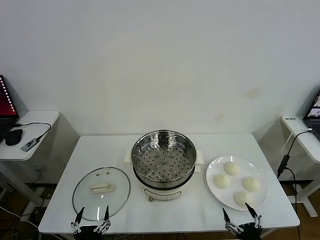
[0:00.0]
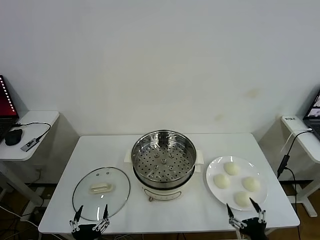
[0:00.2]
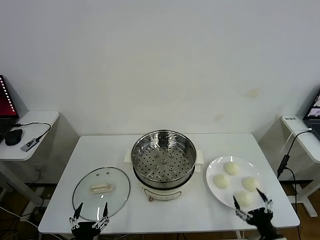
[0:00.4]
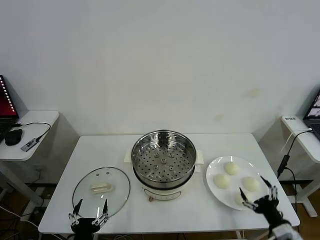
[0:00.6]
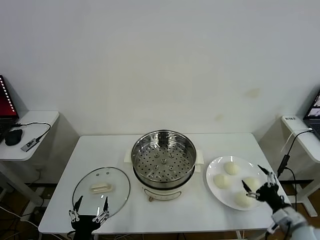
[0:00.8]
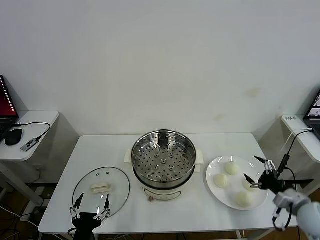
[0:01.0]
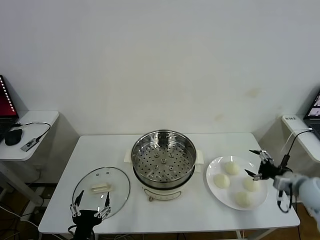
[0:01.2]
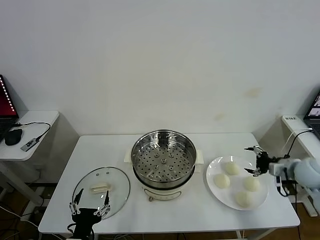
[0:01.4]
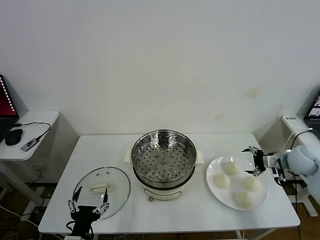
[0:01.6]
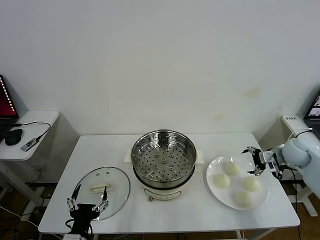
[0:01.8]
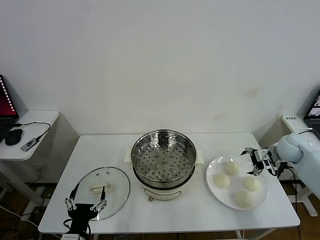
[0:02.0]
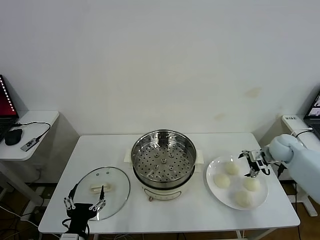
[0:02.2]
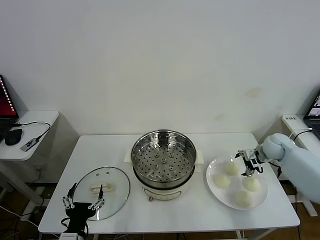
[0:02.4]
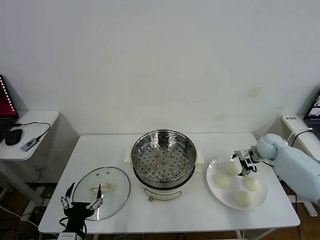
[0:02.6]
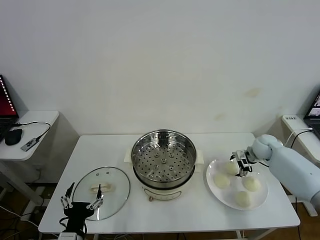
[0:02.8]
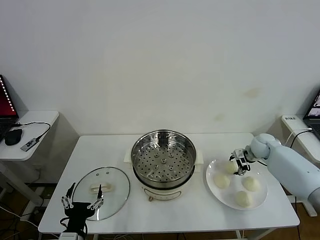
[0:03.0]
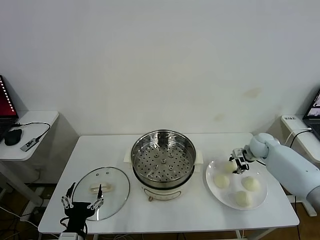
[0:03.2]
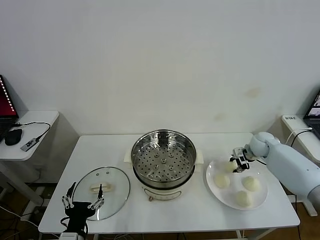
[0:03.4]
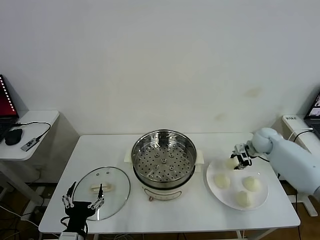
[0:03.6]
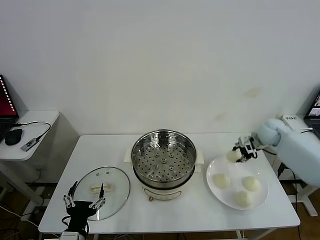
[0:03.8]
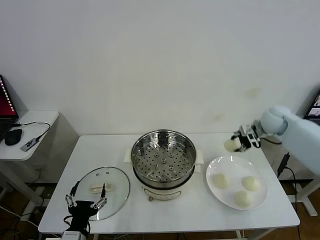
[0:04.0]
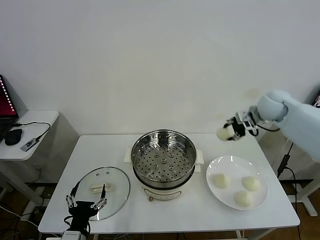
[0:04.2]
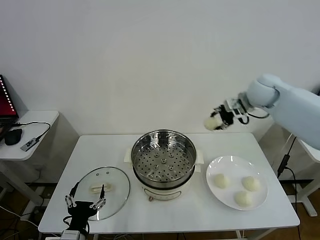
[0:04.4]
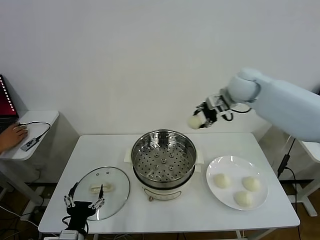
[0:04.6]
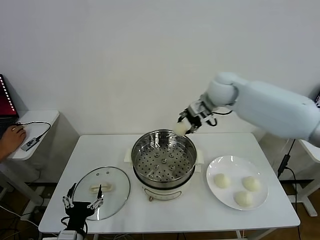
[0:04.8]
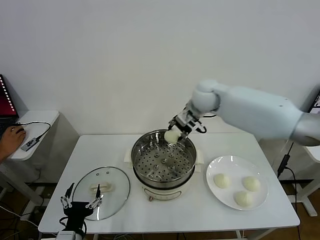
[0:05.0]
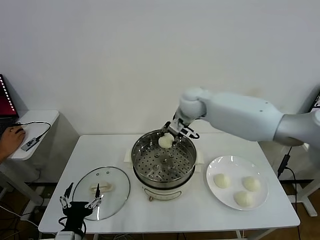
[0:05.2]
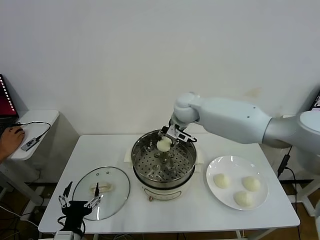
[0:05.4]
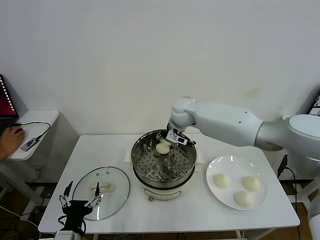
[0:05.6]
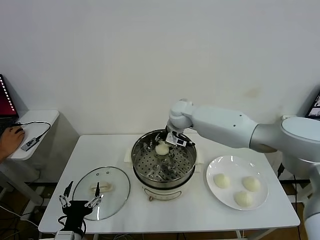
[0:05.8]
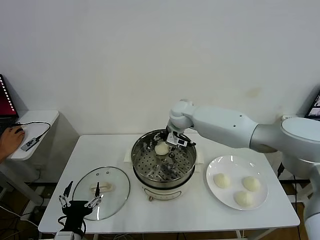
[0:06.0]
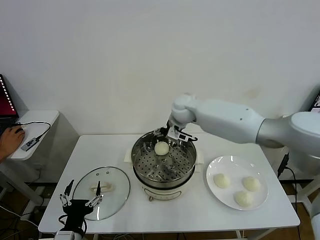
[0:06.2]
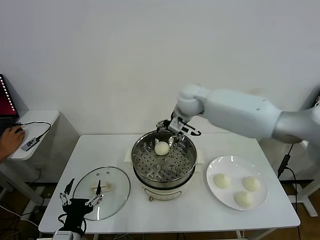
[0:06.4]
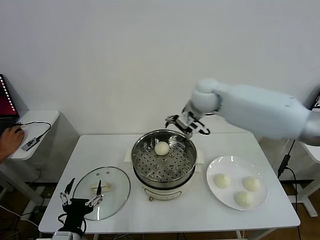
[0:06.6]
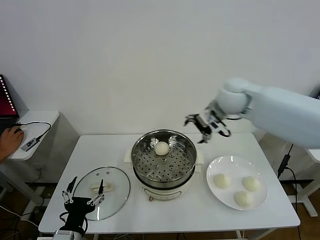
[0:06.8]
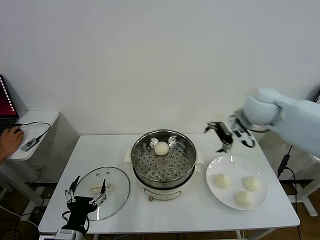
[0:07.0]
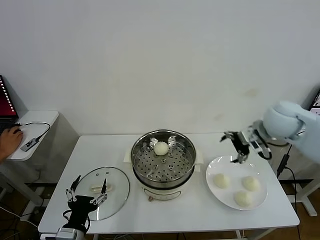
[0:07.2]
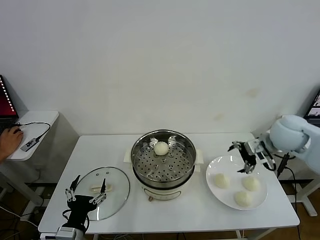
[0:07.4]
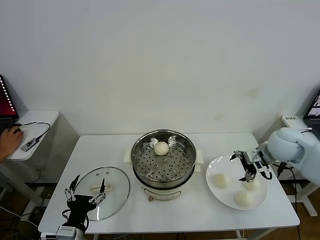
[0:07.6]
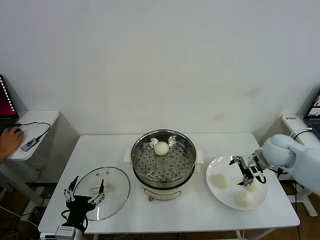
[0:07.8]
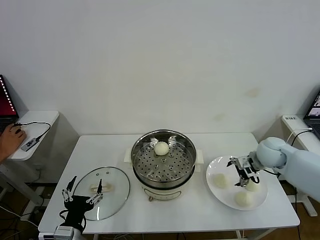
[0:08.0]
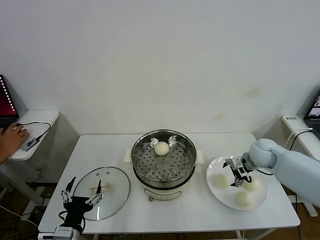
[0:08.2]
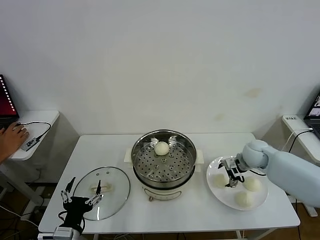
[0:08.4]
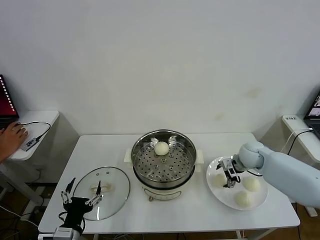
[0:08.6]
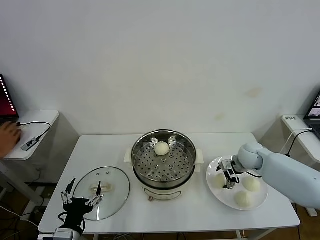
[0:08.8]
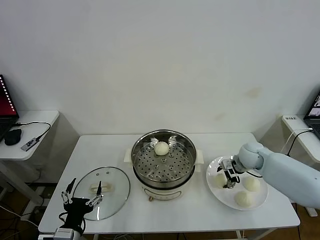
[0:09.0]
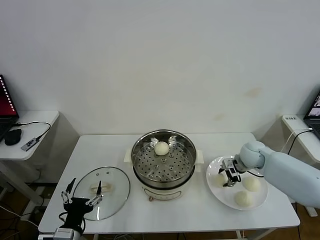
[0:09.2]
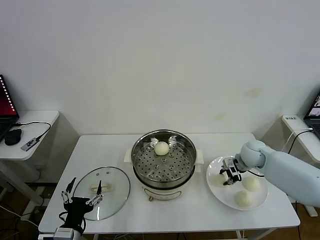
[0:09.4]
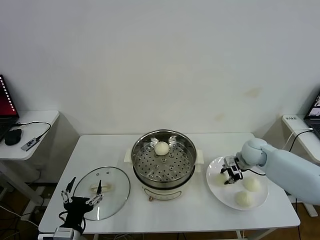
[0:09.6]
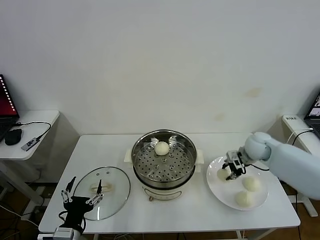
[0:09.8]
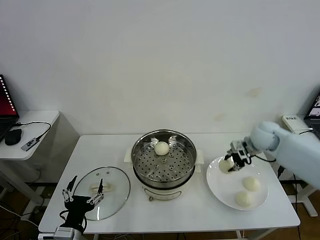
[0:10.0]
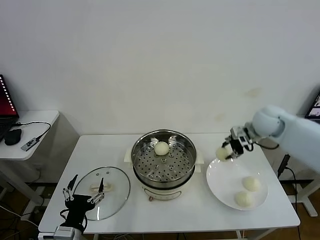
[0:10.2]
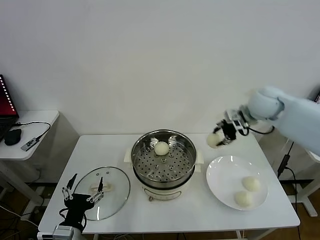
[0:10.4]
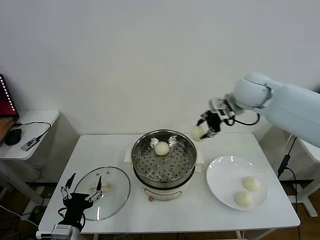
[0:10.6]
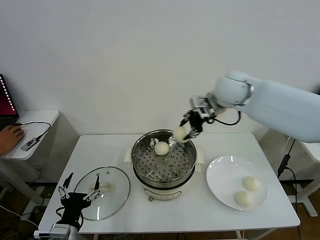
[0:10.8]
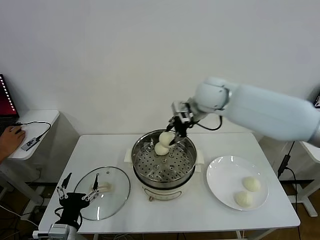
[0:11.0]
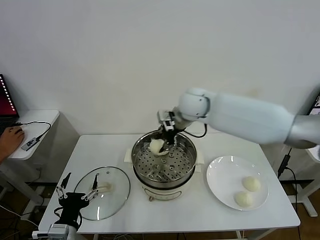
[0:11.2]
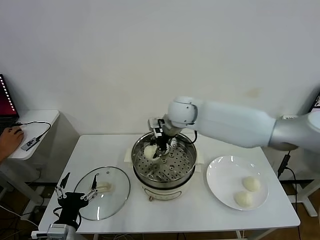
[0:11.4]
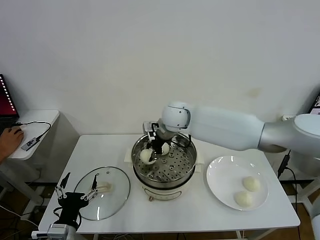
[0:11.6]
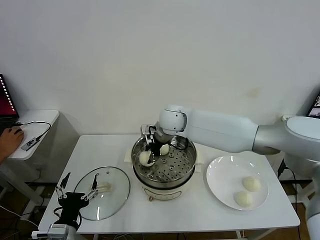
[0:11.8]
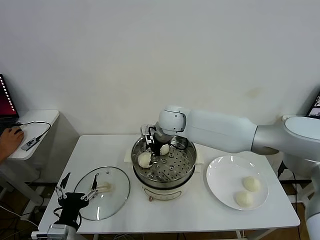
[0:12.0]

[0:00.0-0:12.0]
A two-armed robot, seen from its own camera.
Task of the whole recording: take steamed baozi put them in steamer then cover it.
Step, 0.0 to 3.2 s: Grasp the baozi in the plate with right gripper.
Step, 3.4 to 6.0 s: Place the baozi on the steamer with right gripper.
Step, 6.2 to 9.4 s: Grasp the baozi in the plate with right gripper.
Step, 9.6 to 12.0 s: Place the baozi on the steamer with right gripper.
1.6 to 3.0 s: The right gripper goes roughly 15 cm forward, downward and to the left, and closes its fingers.
3.0 to 4.4 s: The right gripper heads upward and to the left, covering some 30 cm.
4.4 to 6.0 s: The right gripper goes about 20 cm to the left and downward, and opens its fingers.
6.0 to 7.6 s: The right gripper heads to the right and backward, covering approximately 35 cm.
7.6 to 9.0 s: The right gripper shifts about 10 cm downward and forward, and closes up.
9.0 to 10.4 s: The right gripper travels upward by some 25 cm, and closes.
10.4 to 12.0 s: The right gripper heads to the left and downward, covering approximately 25 cm, and opens its fingers.

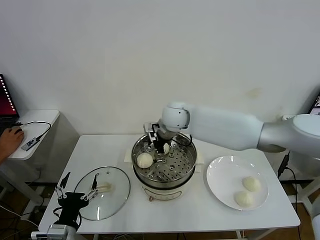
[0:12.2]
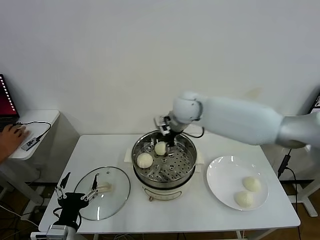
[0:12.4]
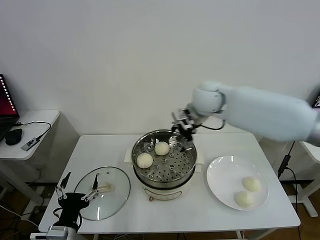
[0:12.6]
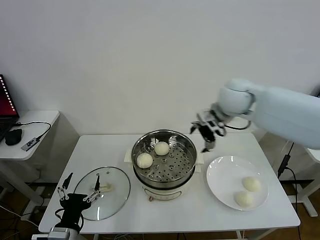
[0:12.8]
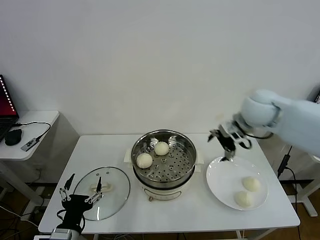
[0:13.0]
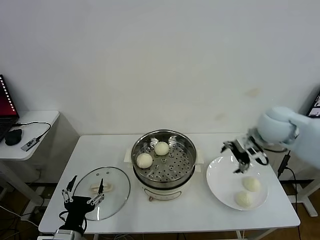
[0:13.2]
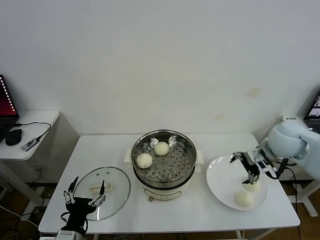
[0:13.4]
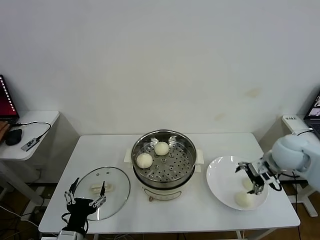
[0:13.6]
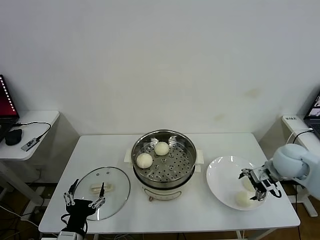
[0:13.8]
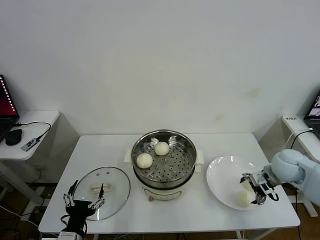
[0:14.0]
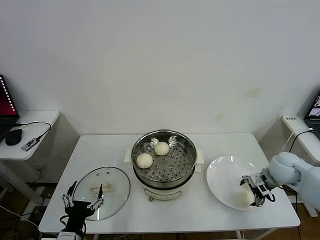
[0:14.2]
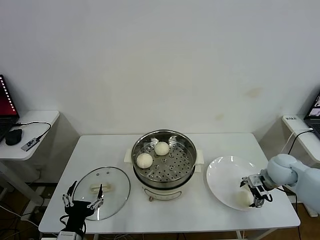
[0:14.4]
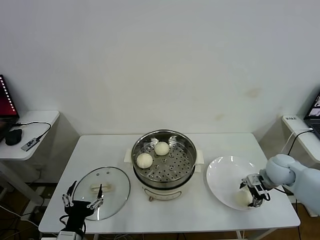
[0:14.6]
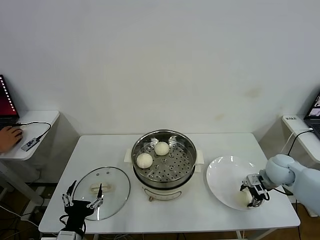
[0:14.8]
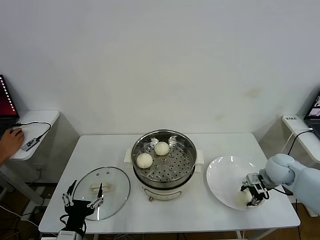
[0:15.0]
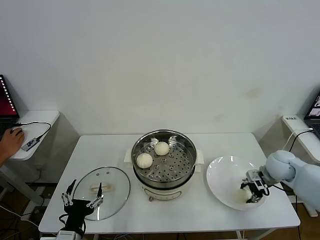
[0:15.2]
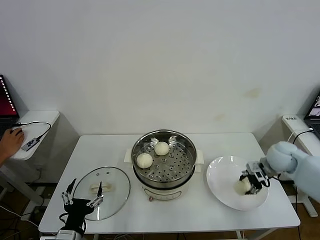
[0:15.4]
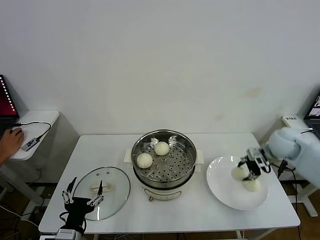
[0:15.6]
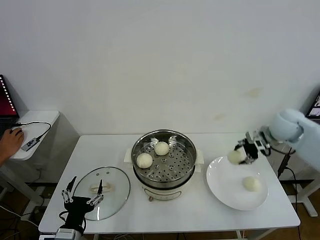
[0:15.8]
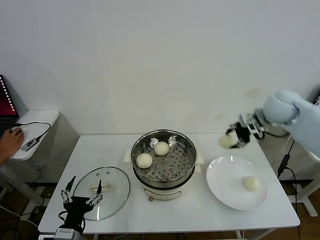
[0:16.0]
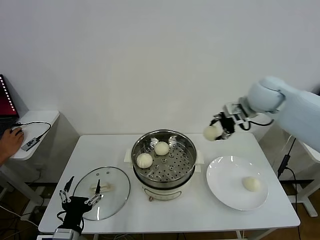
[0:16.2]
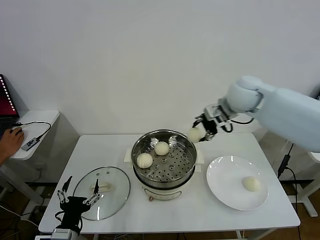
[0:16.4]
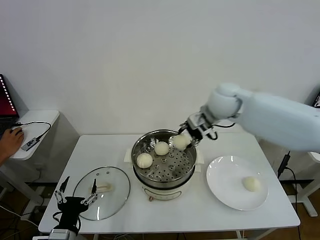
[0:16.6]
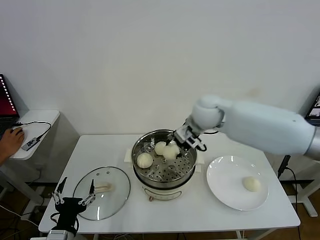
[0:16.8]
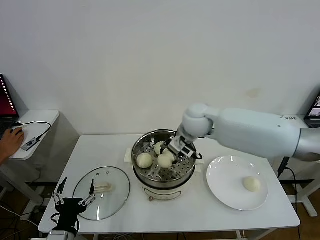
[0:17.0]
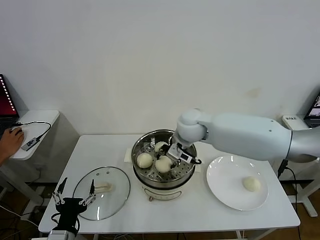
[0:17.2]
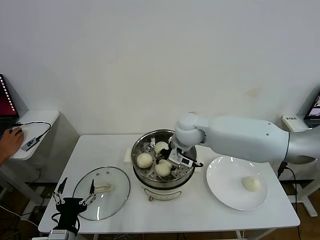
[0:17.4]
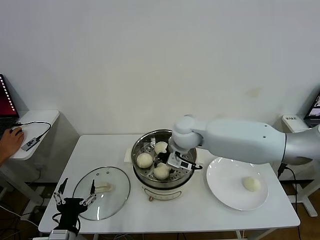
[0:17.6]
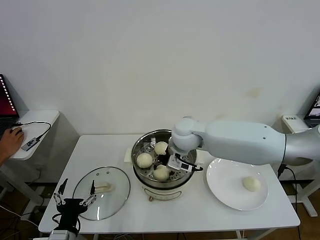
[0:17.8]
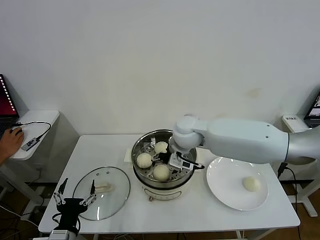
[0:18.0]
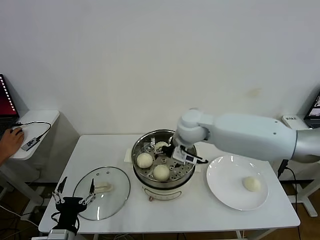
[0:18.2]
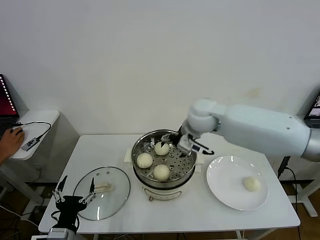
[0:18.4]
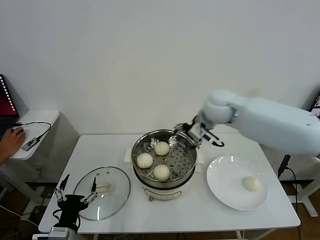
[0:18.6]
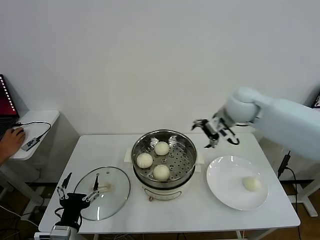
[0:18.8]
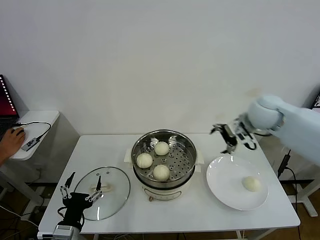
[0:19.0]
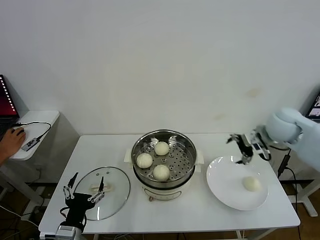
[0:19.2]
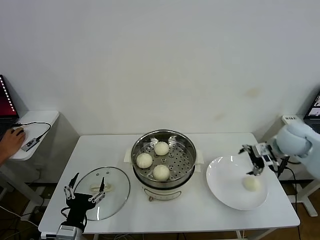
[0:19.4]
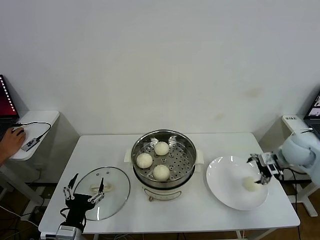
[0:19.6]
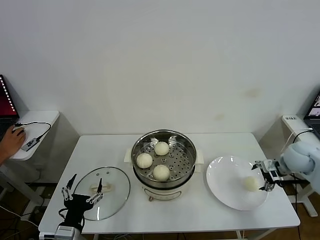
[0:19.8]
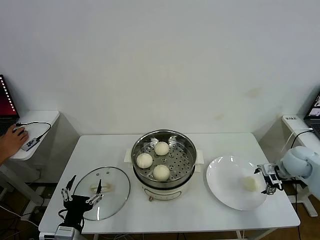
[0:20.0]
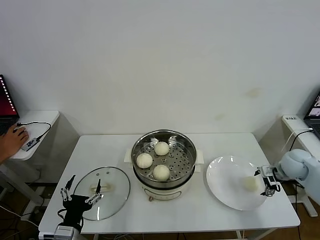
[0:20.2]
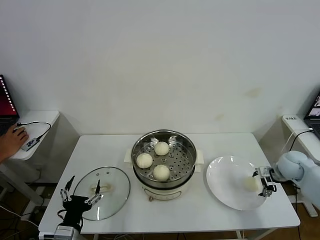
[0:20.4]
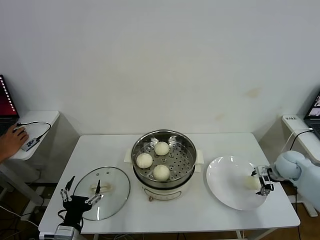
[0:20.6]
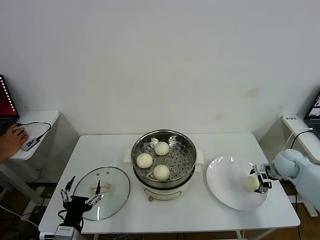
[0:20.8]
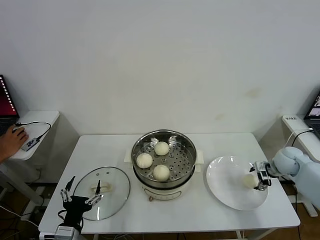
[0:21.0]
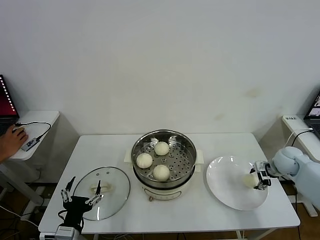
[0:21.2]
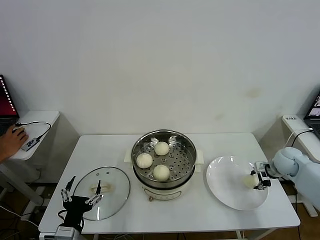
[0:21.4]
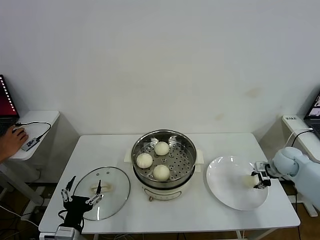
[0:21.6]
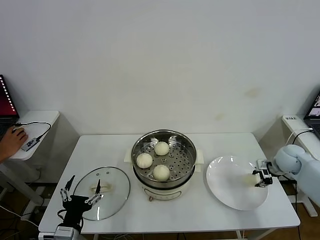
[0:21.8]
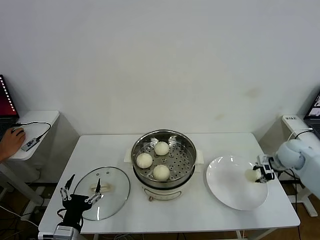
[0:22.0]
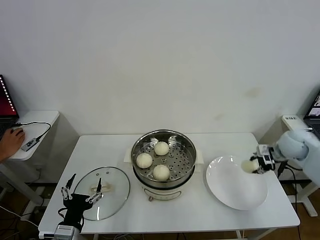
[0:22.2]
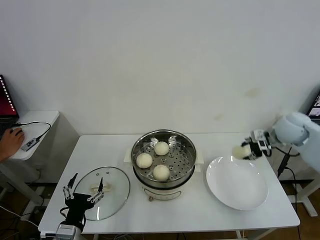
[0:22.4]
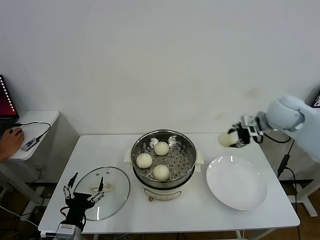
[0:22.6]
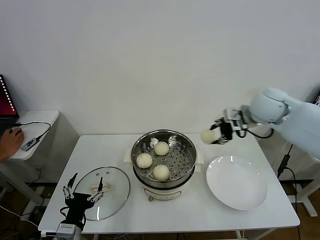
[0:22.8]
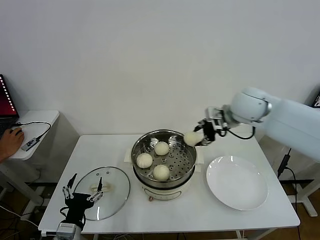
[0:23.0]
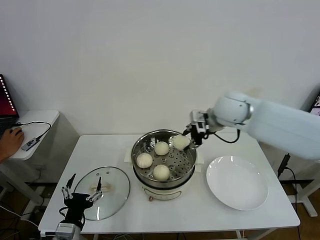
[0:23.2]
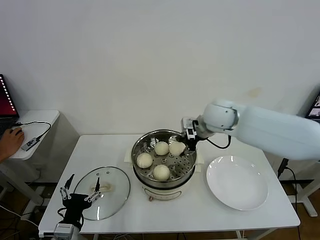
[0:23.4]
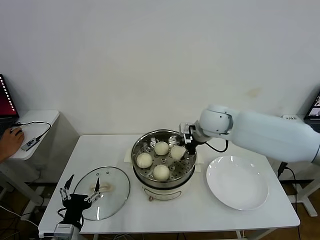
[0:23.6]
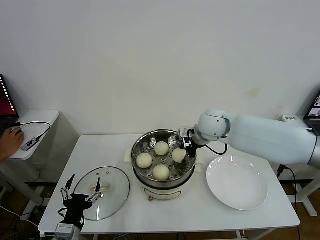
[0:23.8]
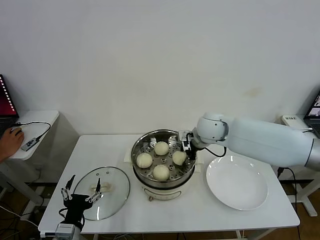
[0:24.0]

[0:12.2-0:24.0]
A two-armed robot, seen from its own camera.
Task of the whole recording: take steamed baozi put them in steamer then cover it.
Step, 12.2 to 15.0 s: Grasp the baozi in the plate with right gripper.
Step, 15.2 to 18.0 s: Place the baozi on the steamer with right gripper.
Step, 18.2 to 21.6 s: Grasp the baozi in the plate with right gripper.
12.2 to 13.6 s: The right gripper travels to the right and backward by some 35 cm.
13.6 to 15.2 s: The right gripper shifts about 10 cm downward, and closes.
15.2 to 16.6 s: The right gripper moves to the left and upward, approximately 30 cm.
16.6 to 18.2 s: The right gripper is displaced to the left and downward by some 10 cm, and opens.
18.2 to 19.6 s: The right gripper shifts roughly 35 cm to the right.
19.6 to 21.0 s: The right gripper shifts approximately 10 cm downward.
21.0 to 22.6 s: The right gripper is displaced upward and to the left by some 25 cm, and closes its fingers.
22.6 to 24.0 s: The right gripper heads to the left, covering approximately 20 cm.
